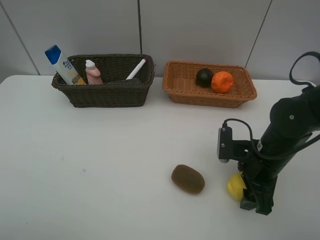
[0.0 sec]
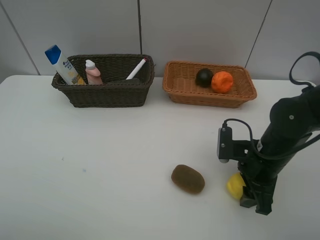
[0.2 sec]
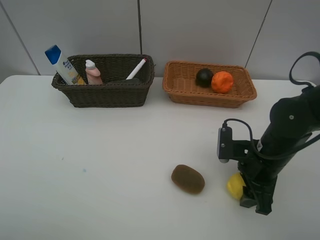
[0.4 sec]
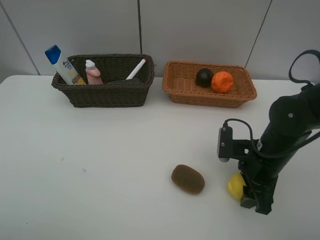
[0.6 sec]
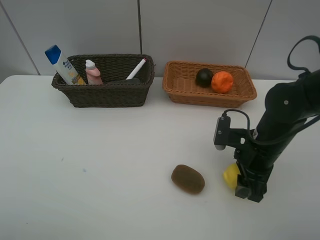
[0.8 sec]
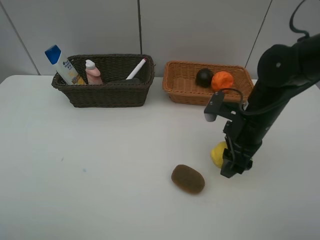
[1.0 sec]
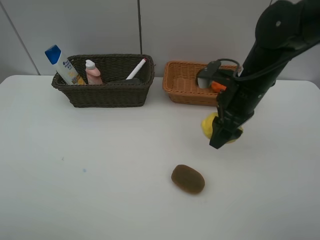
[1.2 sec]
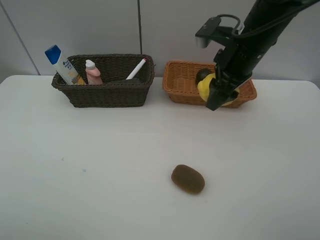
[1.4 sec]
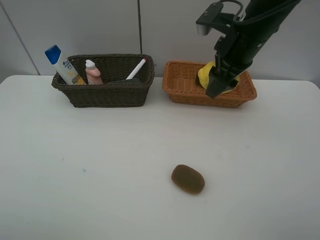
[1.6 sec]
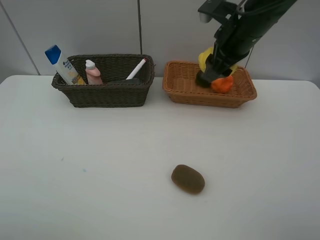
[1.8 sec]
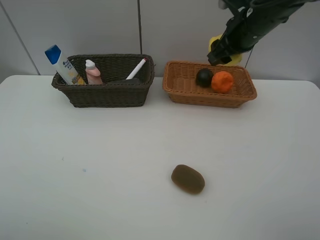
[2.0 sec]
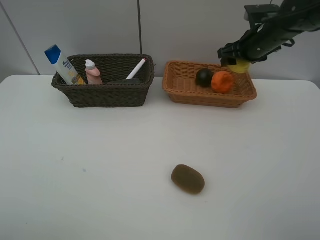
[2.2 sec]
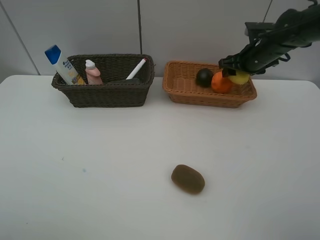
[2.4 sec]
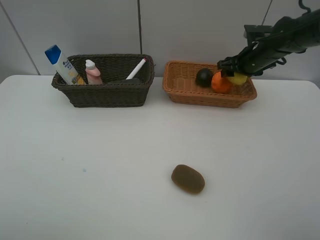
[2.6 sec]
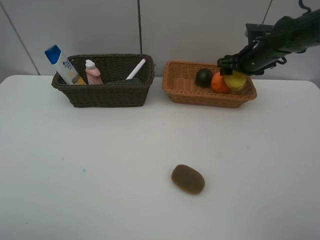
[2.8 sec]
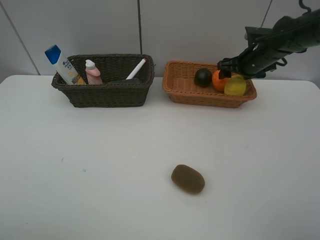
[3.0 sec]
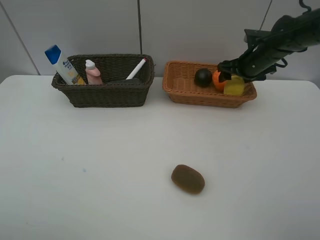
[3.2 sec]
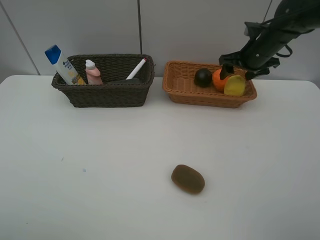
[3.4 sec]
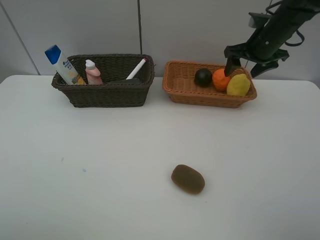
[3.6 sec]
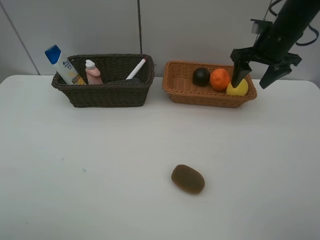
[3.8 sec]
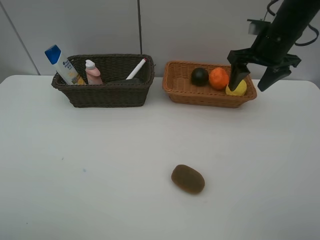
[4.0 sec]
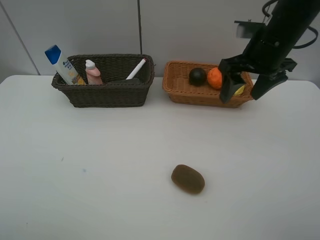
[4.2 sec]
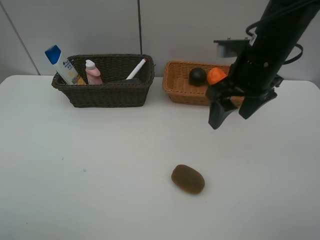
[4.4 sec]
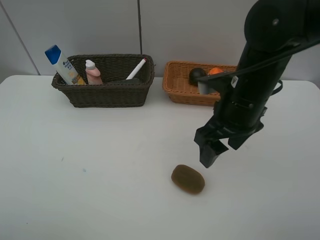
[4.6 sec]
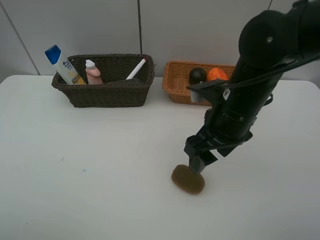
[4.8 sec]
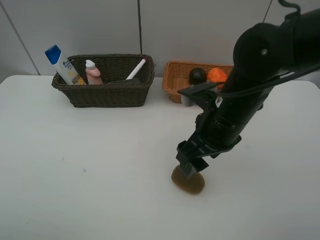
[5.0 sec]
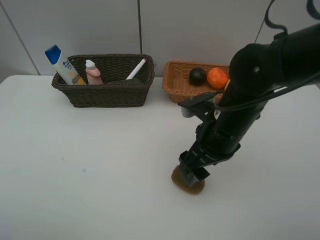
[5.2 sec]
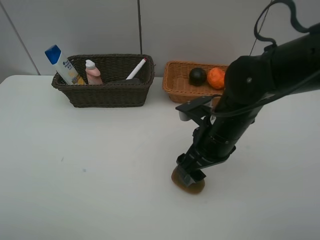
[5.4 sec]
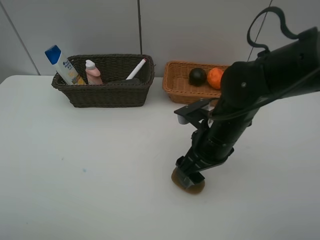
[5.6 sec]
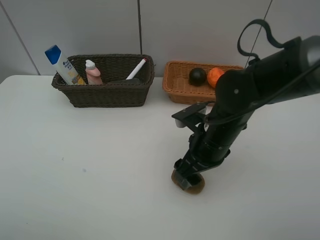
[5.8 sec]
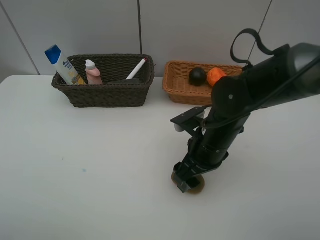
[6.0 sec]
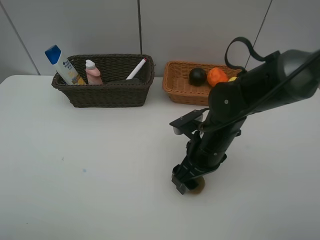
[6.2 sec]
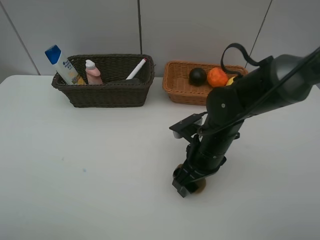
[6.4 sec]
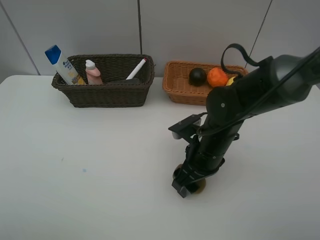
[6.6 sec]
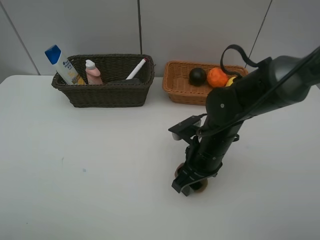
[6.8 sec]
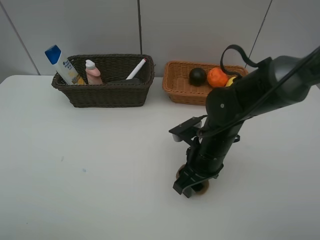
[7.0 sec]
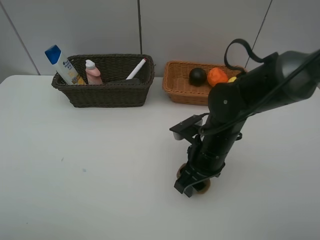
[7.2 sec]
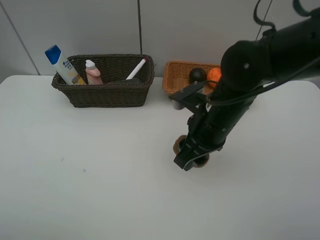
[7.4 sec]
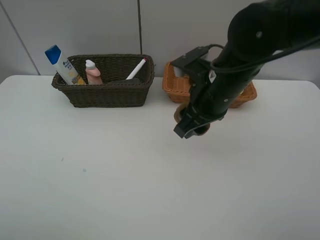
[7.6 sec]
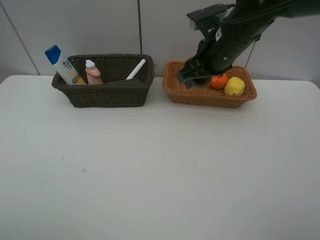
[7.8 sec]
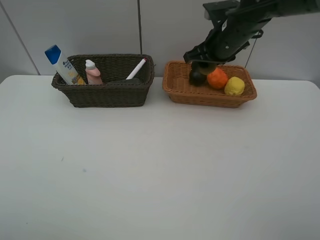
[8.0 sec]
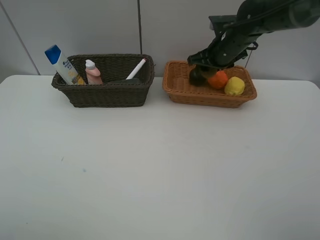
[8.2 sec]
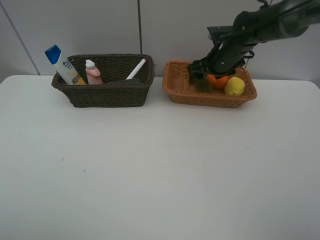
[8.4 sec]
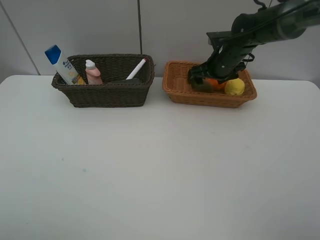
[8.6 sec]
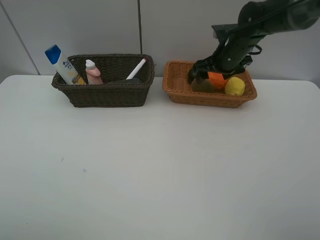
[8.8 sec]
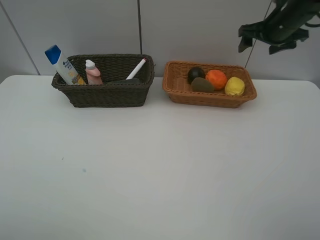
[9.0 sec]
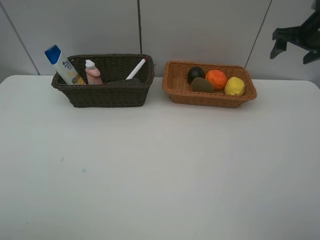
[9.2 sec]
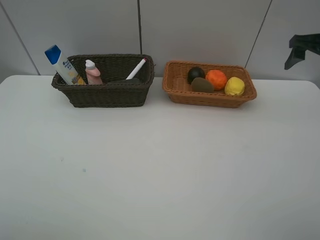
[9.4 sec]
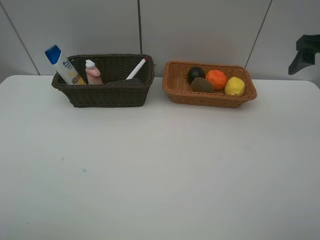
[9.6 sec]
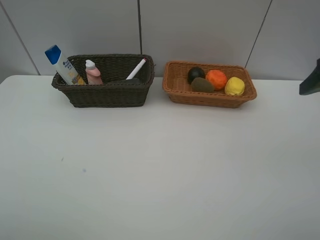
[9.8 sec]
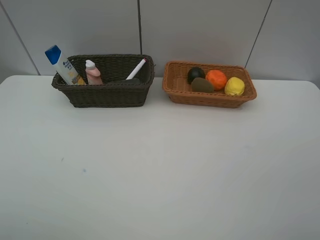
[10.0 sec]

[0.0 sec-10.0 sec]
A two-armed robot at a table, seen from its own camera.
Task of the whole recording: Place multiple objects separately in different baskets.
Step, 1.0 sec to 3.6 sec: Place the lemon in the light basket with right gripper.
Step, 3.8 sec to 7.2 sec: Pick up kiwi with right gripper.
Step, 7.4 sec to 8.8 sec: Place the kiwi in the light basket with right gripper.
0.0 sec to 1.4 sec: The right gripper goes approximately 20 cm upward and forward.
1.4 sec to 2.8 sec: The right gripper heads forward, to the right and downward, covering about 20 cm.
2.8 sec to 4.2 sec: The right gripper heads backward, upward and to the left, covering about 20 cm.
4.2 sec to 5.8 sec: The right gripper moves downward, backward and to the left, roughly 20 cm.
5.8 sec to 7.2 sec: The right gripper closes up.
7.2 sec to 8.6 sec: The right gripper travels forward by roughly 20 cm, and opens.
8.6 sec to 10.0 sec: The right gripper shifts approximately 40 cm backward, upward and to the right.

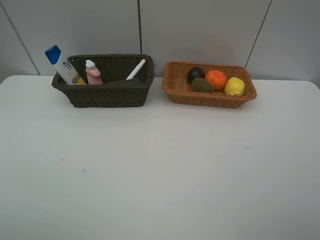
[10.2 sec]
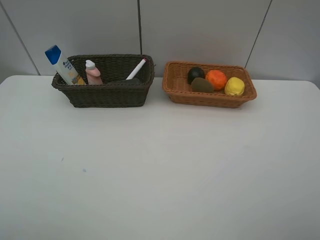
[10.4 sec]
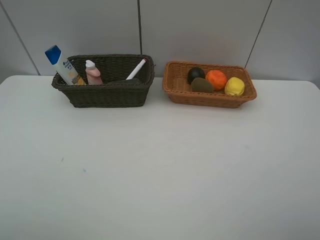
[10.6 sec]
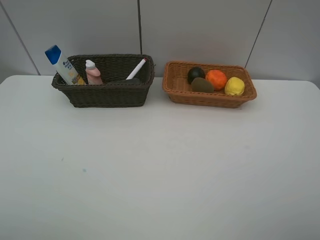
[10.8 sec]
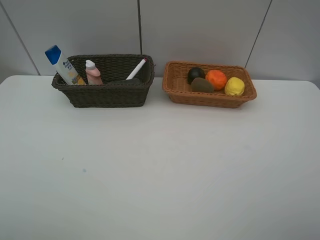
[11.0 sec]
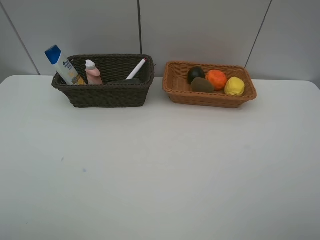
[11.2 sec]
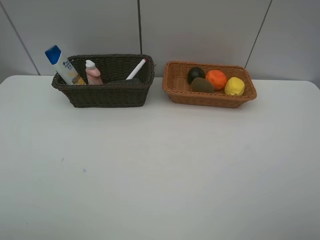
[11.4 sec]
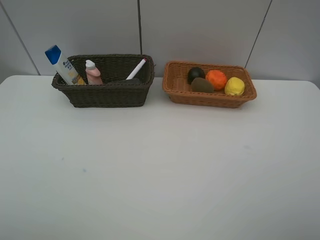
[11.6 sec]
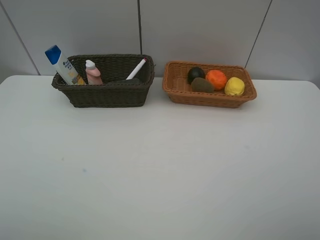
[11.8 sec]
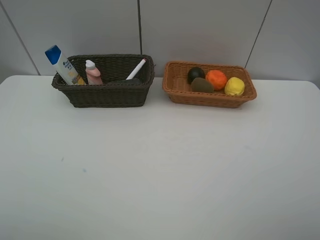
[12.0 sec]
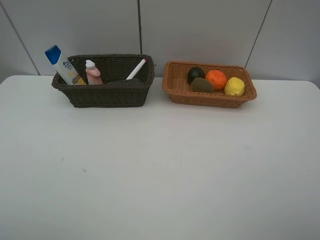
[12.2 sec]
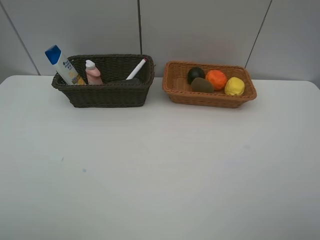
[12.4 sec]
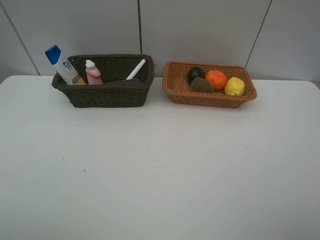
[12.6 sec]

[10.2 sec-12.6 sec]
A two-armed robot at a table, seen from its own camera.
Task of the whole recording: Place multiple objects separately in different baskets.
11.4 sec to 12.6 sec: The two grippers keep their place.
